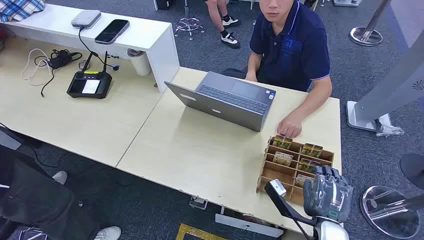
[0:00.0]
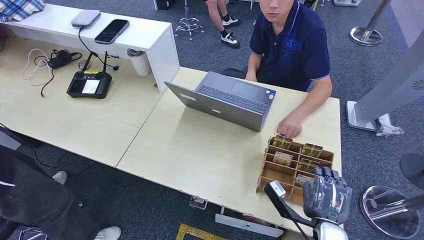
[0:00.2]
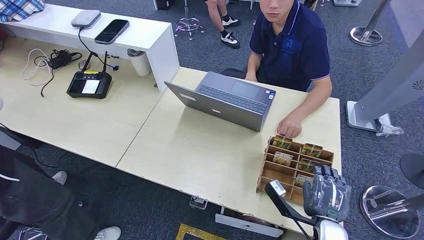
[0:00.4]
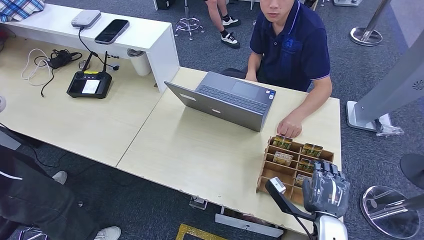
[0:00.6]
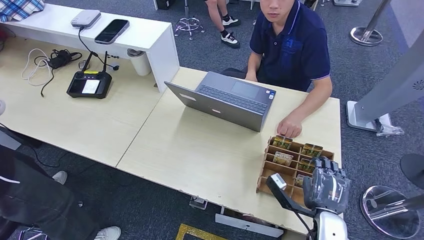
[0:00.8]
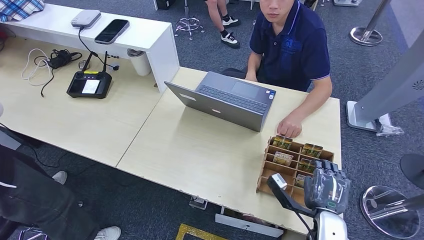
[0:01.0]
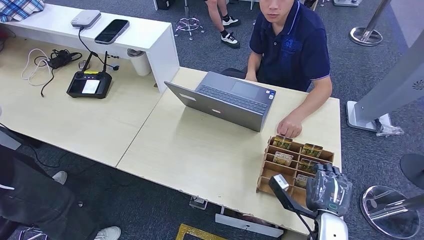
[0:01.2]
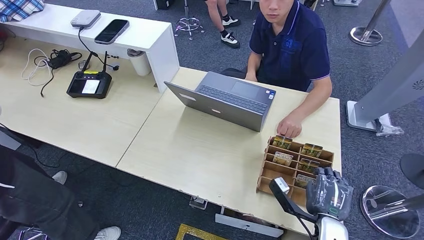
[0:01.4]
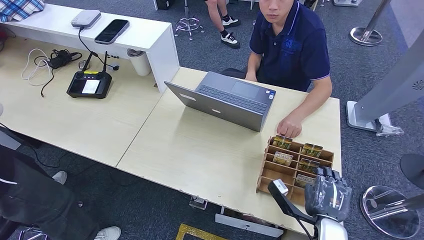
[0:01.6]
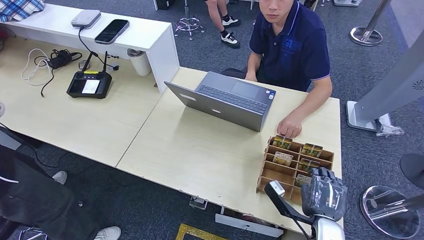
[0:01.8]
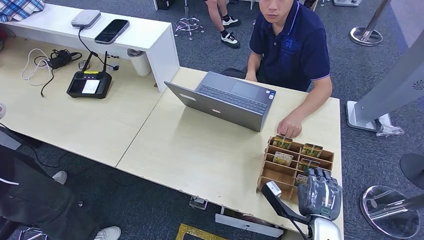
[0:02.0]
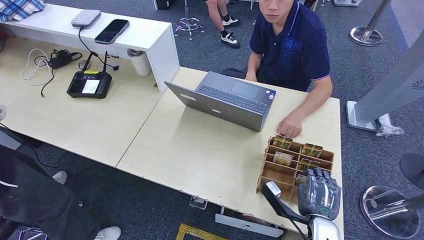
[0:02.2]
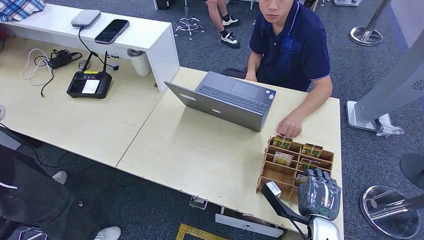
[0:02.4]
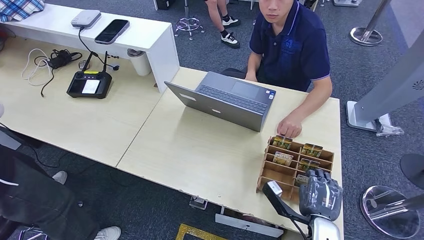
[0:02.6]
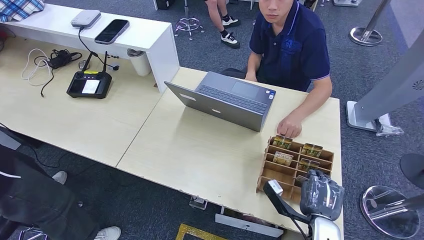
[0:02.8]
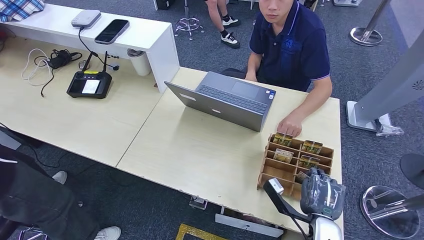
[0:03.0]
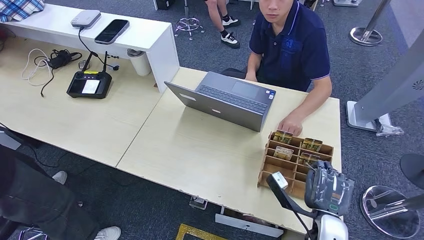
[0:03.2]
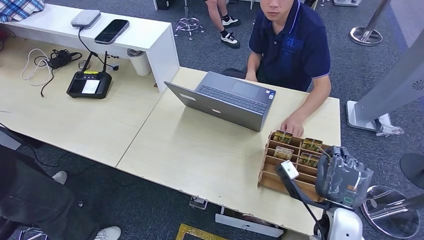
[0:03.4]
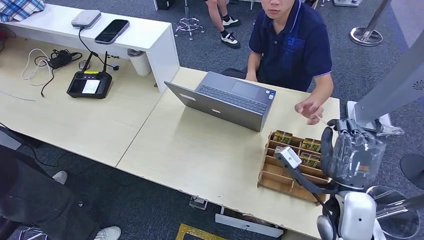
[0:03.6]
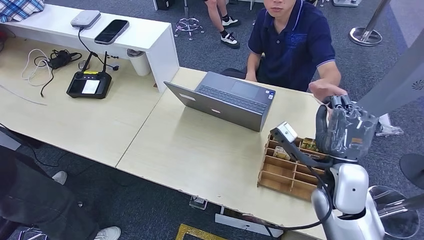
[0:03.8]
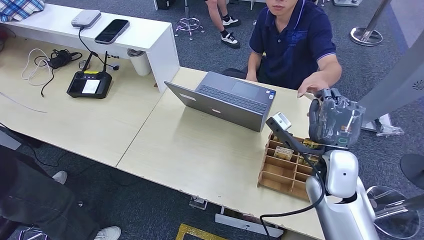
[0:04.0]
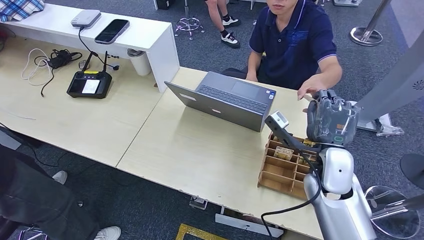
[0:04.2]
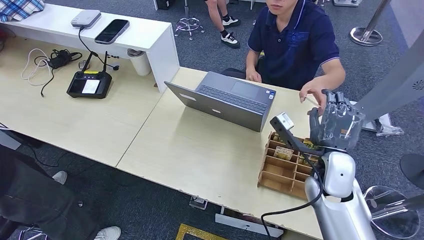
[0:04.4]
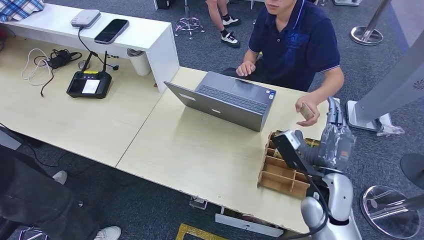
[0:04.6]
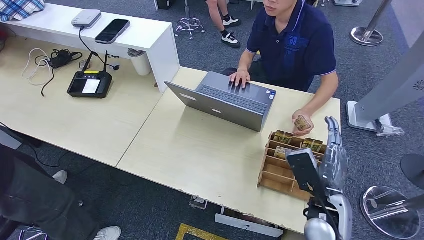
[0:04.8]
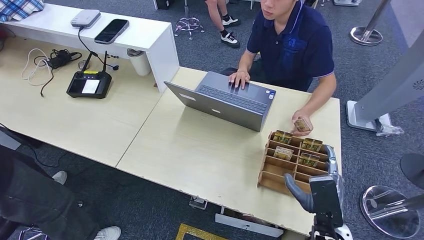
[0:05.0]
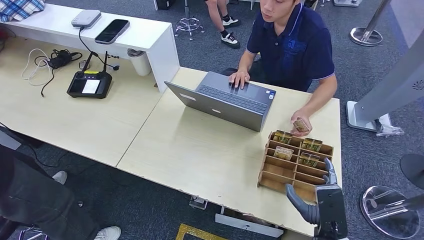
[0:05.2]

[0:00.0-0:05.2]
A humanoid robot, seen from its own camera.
Step, 0:00.0 to 0:03.4: Pick up the room card from the card holder.
Step, 0:03.6 to 0:05.2: Hand the room card to the target.
0:01.8 to 0:03.4: The right hand heads upward, covering some 5 cm.
0:03.4 to 0:05.2: The right hand reaches approximately 10 cm forward, then returns.
